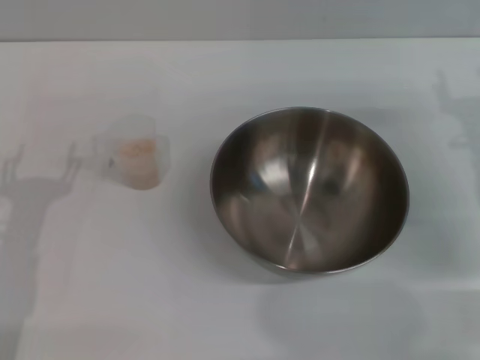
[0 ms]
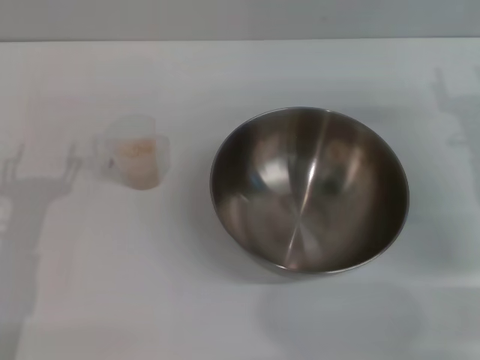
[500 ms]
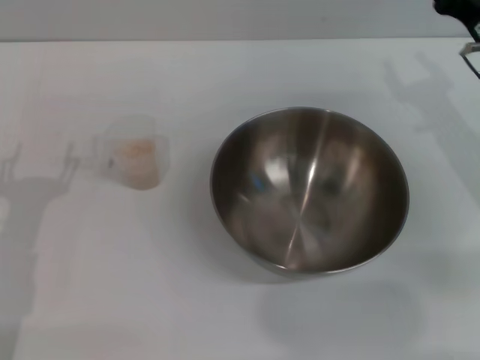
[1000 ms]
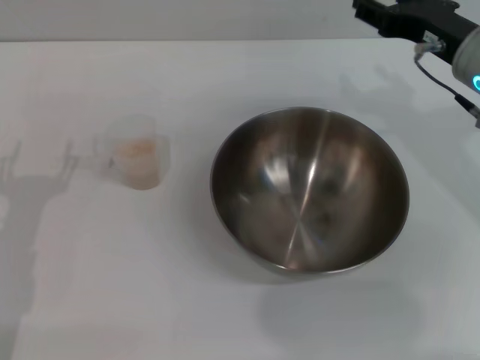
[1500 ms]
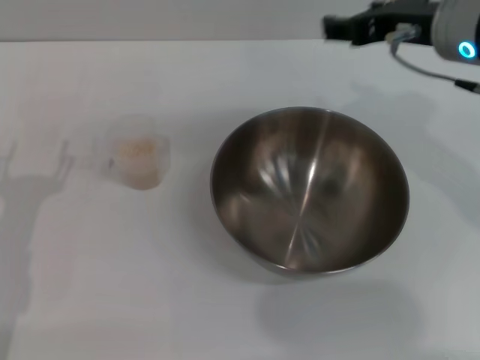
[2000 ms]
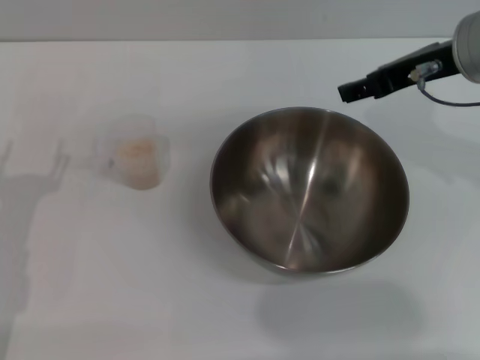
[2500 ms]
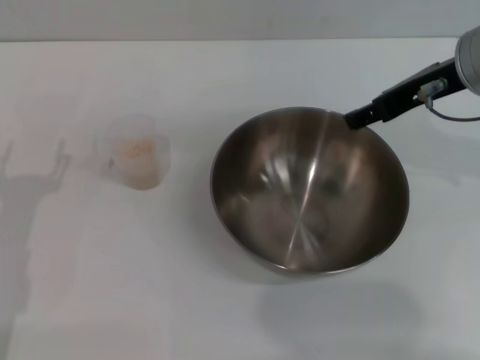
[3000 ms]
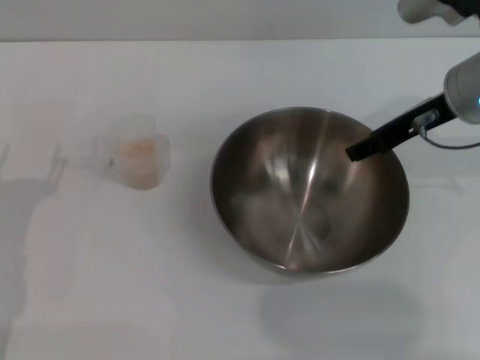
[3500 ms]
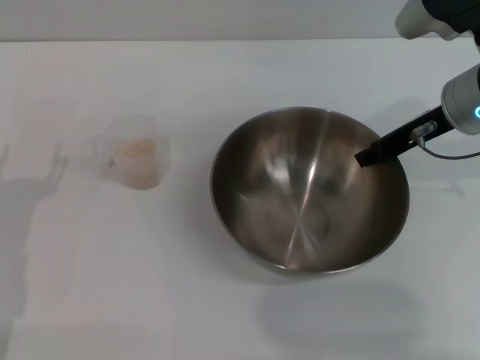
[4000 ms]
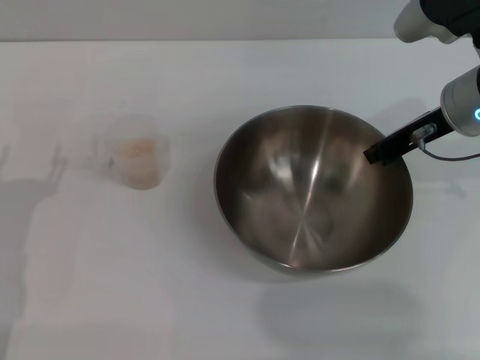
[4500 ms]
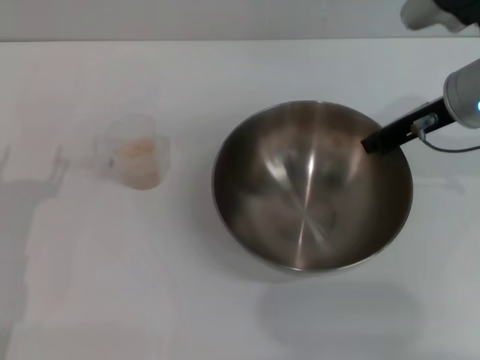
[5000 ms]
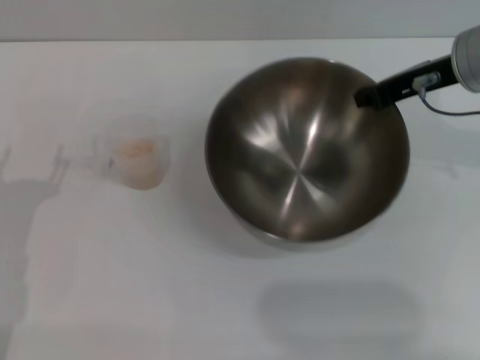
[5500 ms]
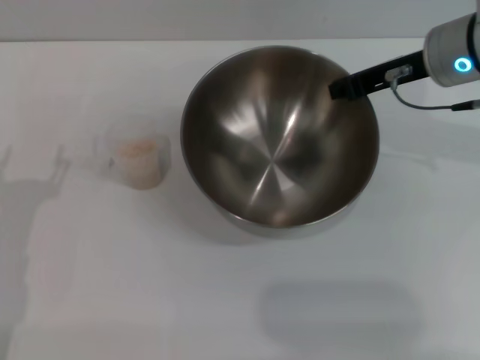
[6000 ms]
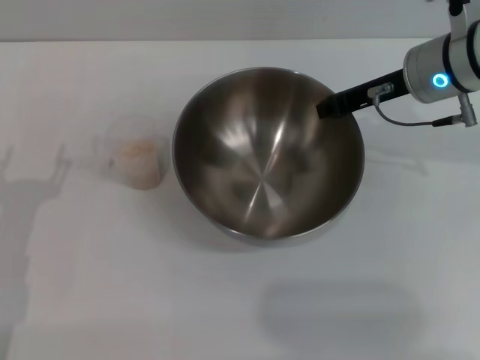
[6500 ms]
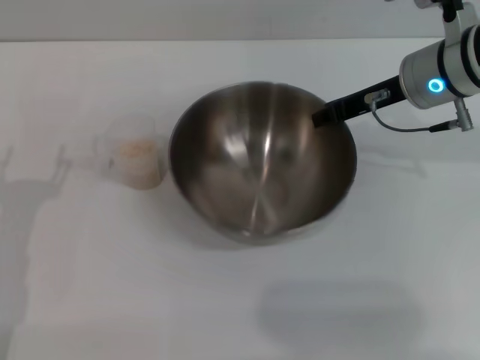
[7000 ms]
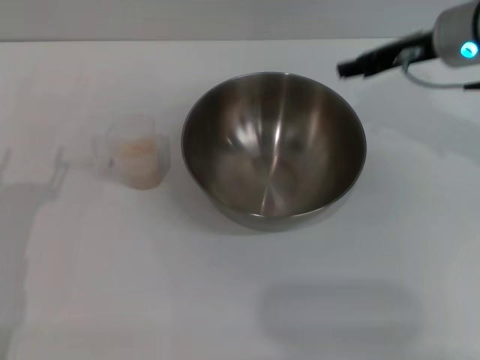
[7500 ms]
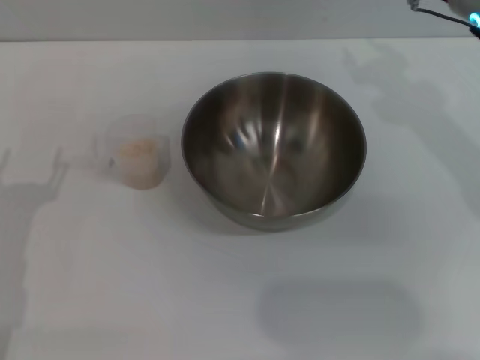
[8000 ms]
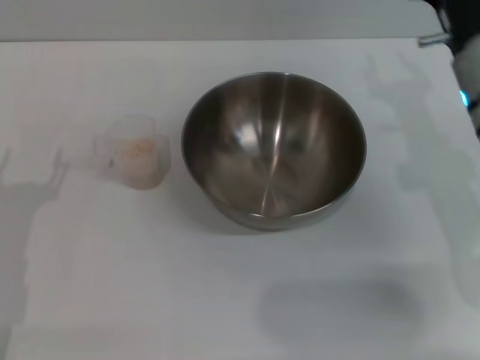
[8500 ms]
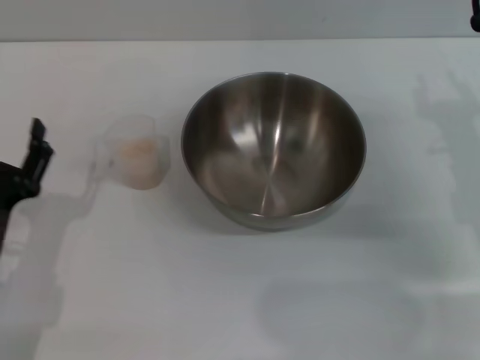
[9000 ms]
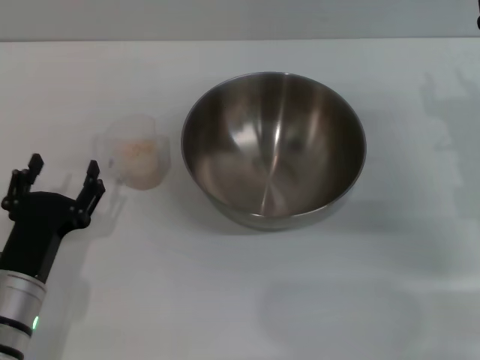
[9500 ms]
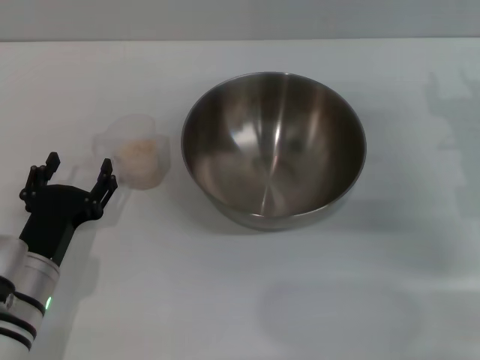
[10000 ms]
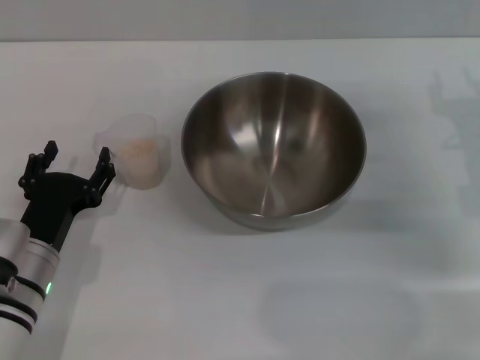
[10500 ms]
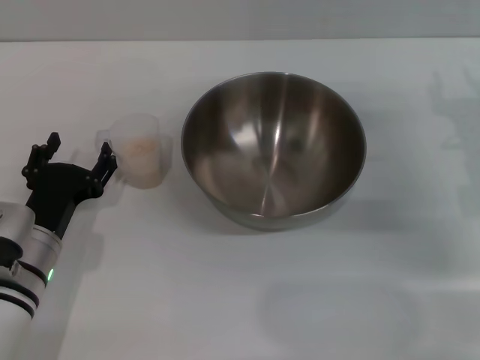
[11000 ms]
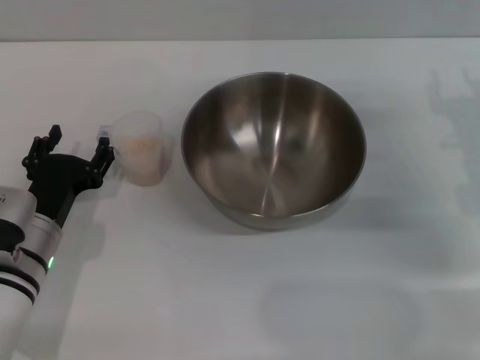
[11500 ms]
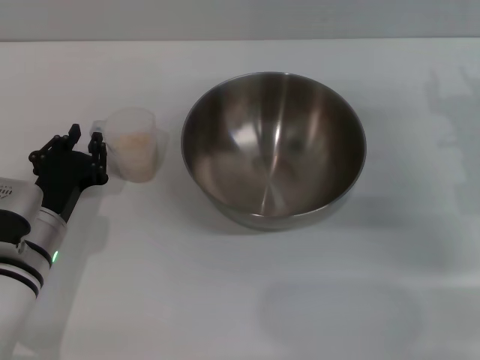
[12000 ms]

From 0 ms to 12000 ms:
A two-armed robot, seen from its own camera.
Task of the whole recording: Place the bowl in the middle of the table with one hand and pour the rice from the grain cup into it with the other hand.
Step, from 0 ms to 5000 ms: Pick up the bowl with the right gripper.
Step, from 6000 ms to 7000 ms: Place the bowl in the center of view with the right gripper.
From 0 ms to 2000 ms: The right gripper moves upward and to the left, about 20 cm.
From 2000 ms to 4000 ms: The right gripper travels downward by about 5 cm.
From 4000 ms to 6000 ms: The right gripper closes its fingers.
From 6000 ms to 8000 ms: The right gripper opens its fingers.
From 8000 ms to 10000 ms: The left gripper heads to the right and downward, covering about 10 cm. The right gripper is displaced downward, backward and to the right by roughly 15 cm.
From 10000 ms to 12000 ms: The left gripper ends up approximately 5 cm from where it was, and closes.

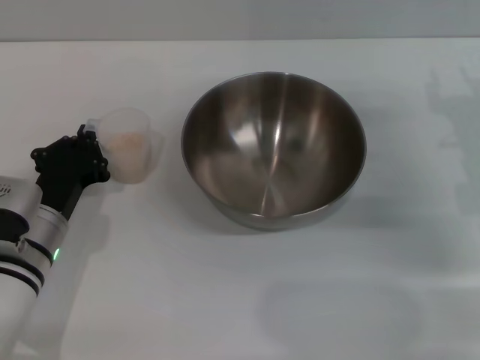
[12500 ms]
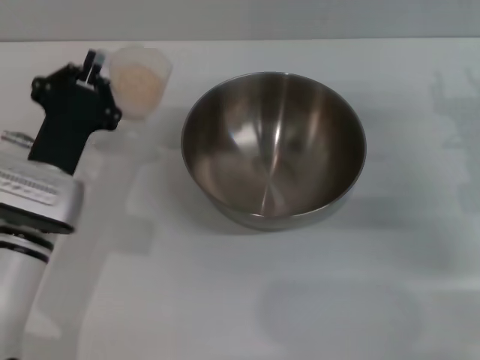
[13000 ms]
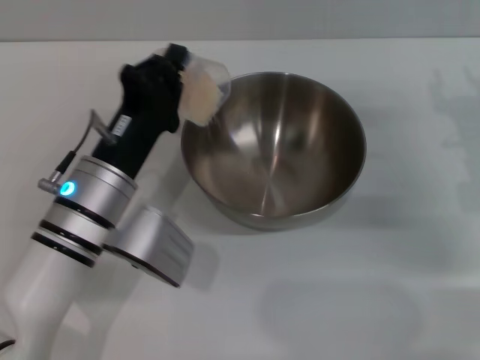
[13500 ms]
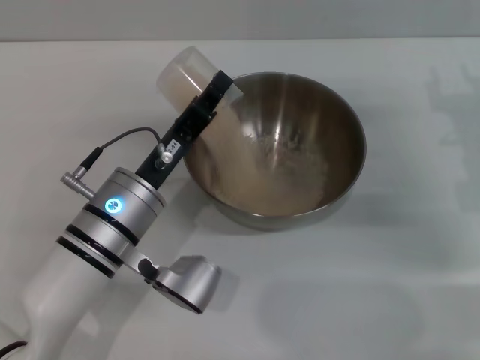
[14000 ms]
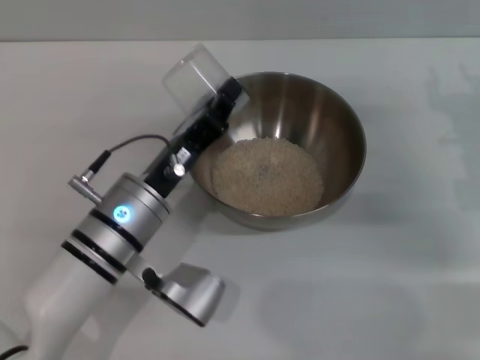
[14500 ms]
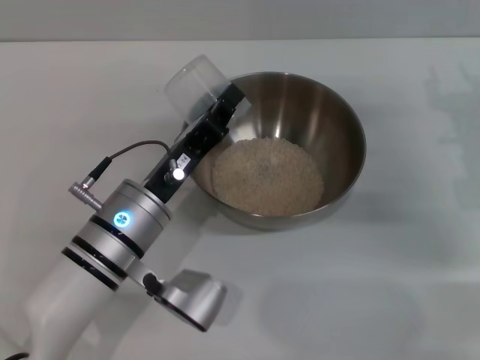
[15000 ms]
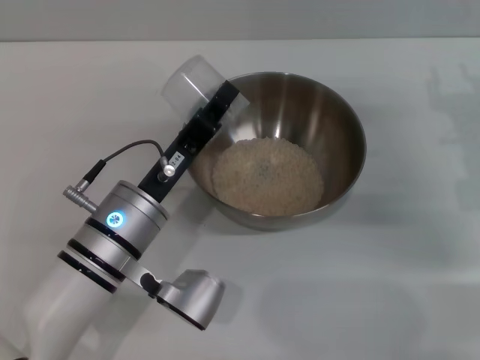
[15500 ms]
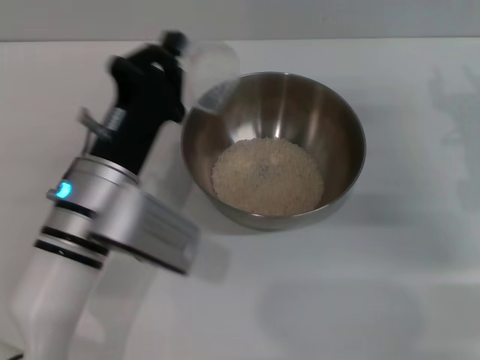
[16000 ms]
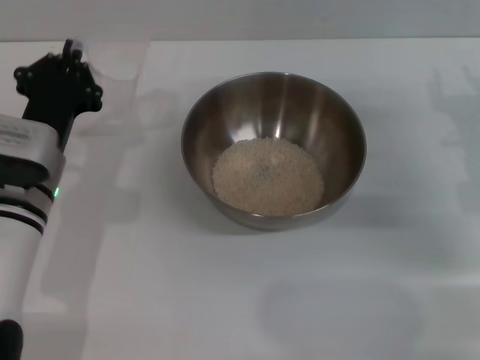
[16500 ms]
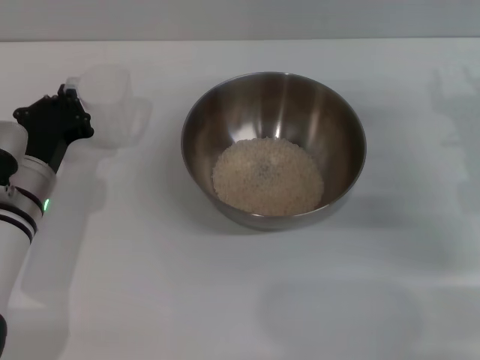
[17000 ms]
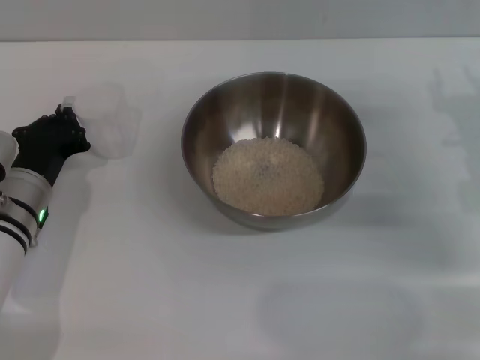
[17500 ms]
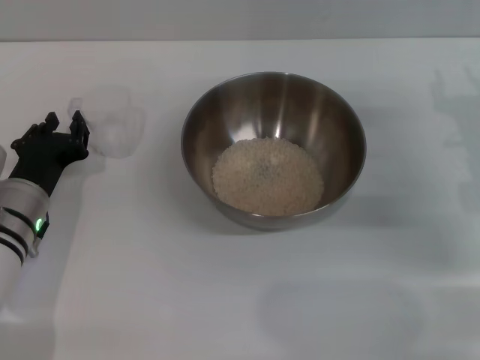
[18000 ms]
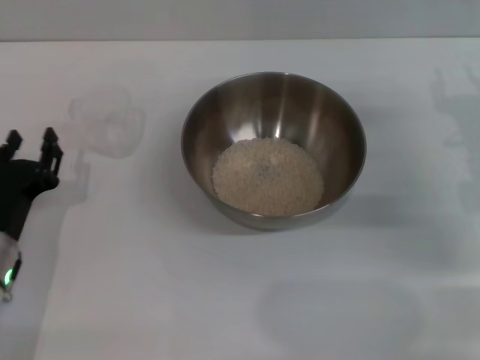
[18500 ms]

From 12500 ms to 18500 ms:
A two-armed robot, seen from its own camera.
Task of the whole recording: Place the bowl in the middle of the table with one hand and pour the rice from the grain cup into it with the other hand.
Step, from 13000 ms to 14500 ms: Pour the rice from the cup into the bowl with the left gripper.
Step, from 15000 ms to 18000 ms: Place the cup on the table with the left gripper.
From 12500 ms to 14500 ms: The left gripper moves to the right, some 10 cm.
From 14500 ms to 16500 ms: The left gripper is displaced to the left by roughly 10 cm.
From 16500 ms to 18500 ms: The left gripper travels backward by roughly 5 cm, and opens.
